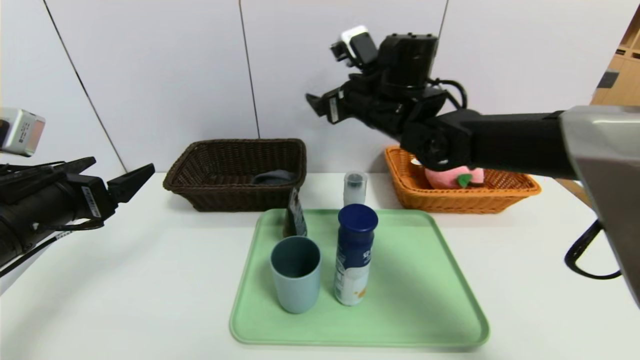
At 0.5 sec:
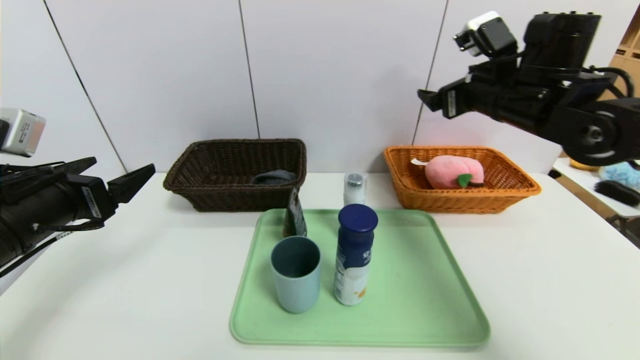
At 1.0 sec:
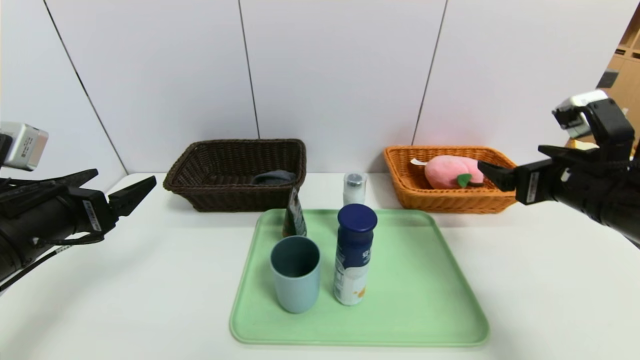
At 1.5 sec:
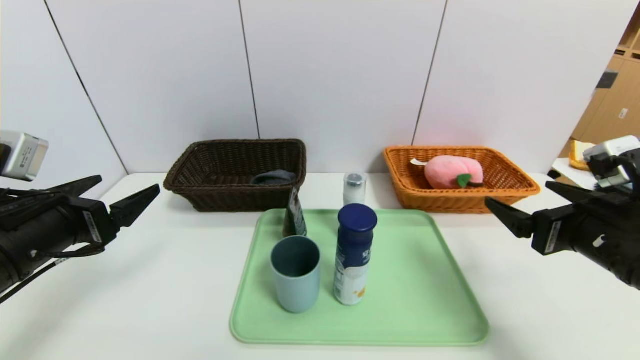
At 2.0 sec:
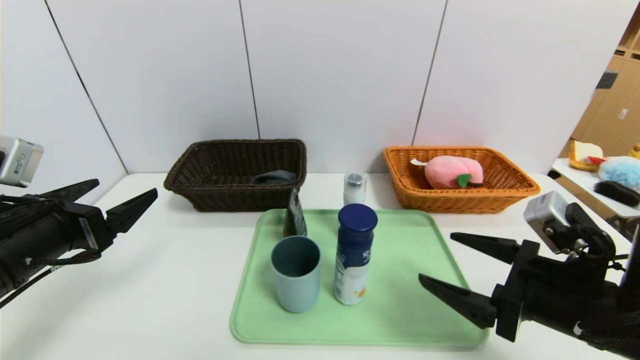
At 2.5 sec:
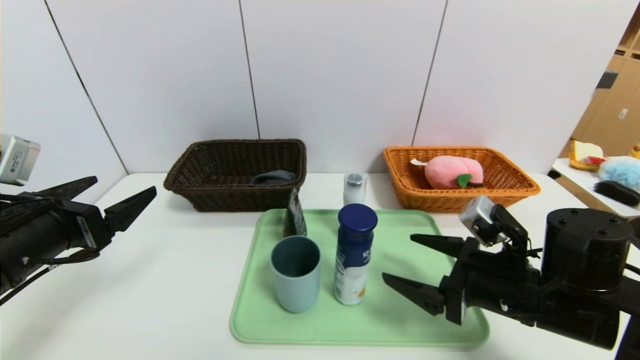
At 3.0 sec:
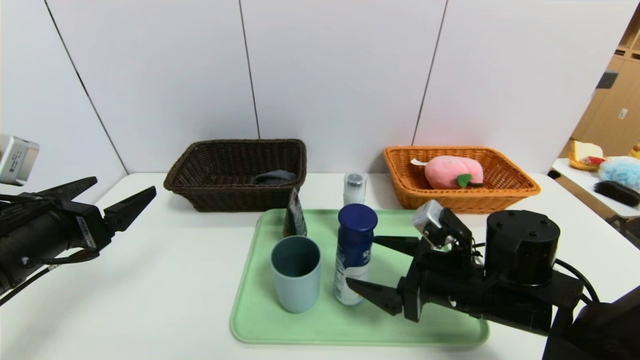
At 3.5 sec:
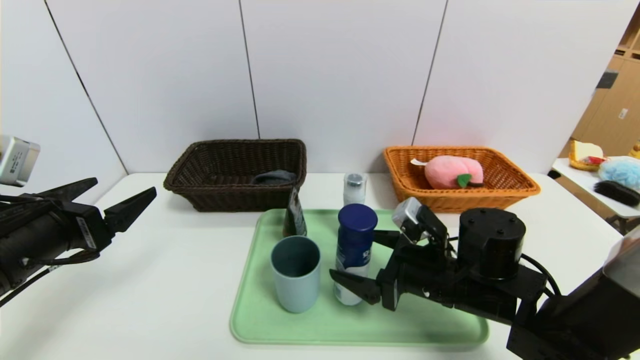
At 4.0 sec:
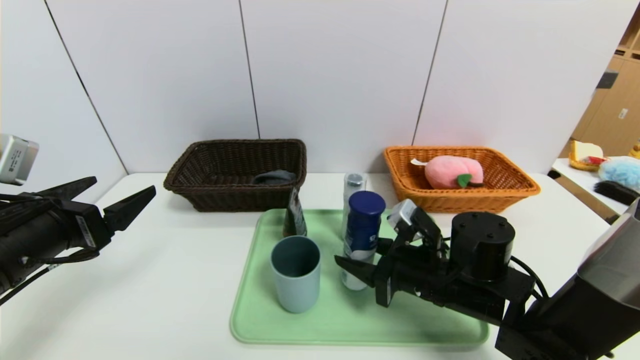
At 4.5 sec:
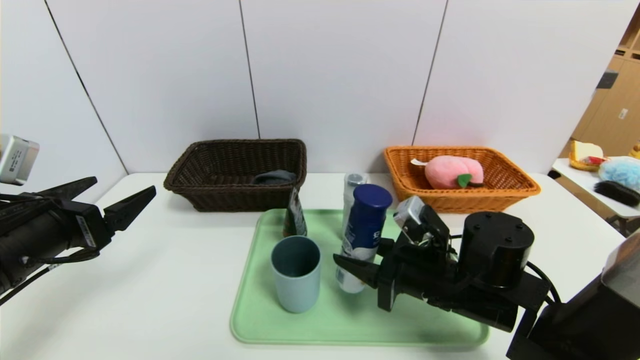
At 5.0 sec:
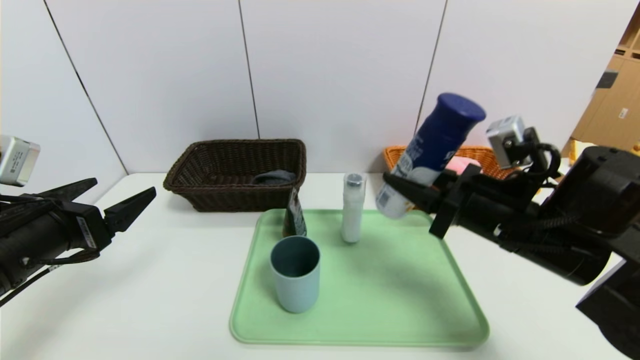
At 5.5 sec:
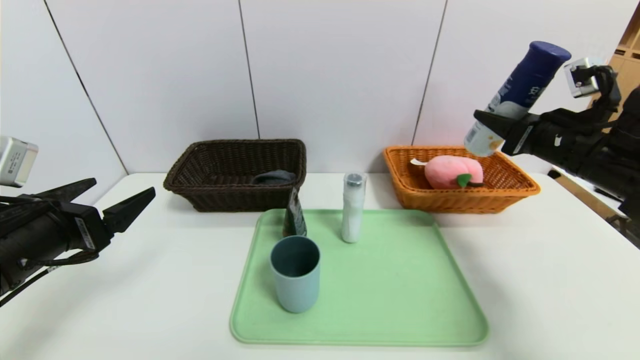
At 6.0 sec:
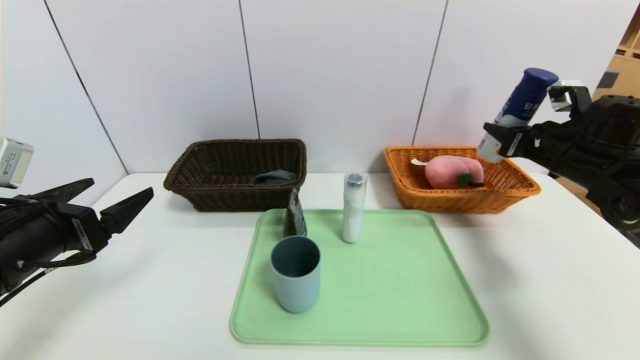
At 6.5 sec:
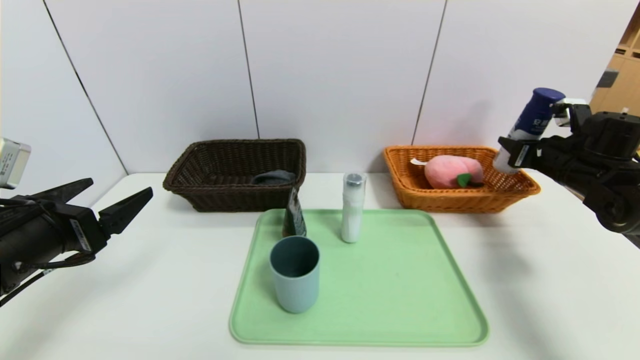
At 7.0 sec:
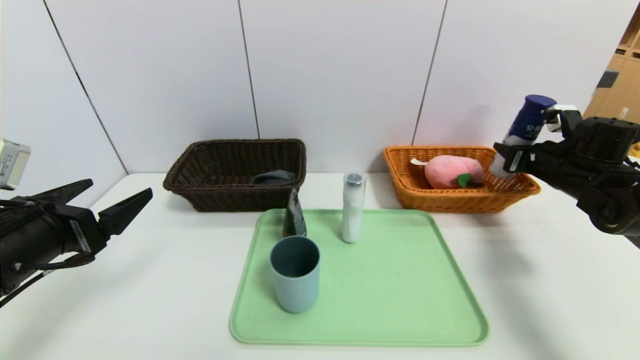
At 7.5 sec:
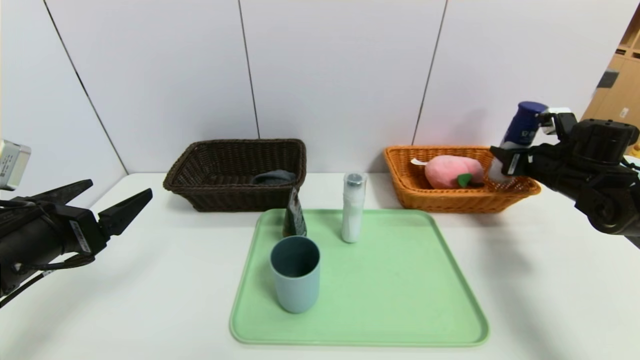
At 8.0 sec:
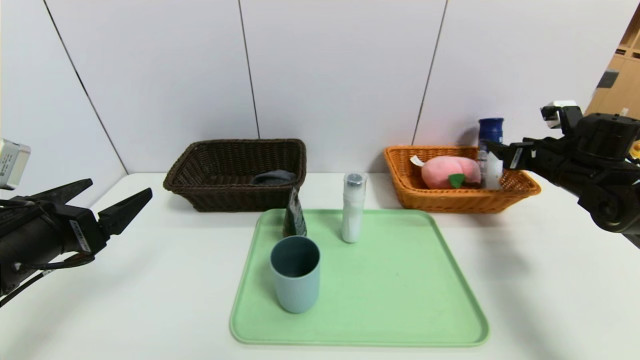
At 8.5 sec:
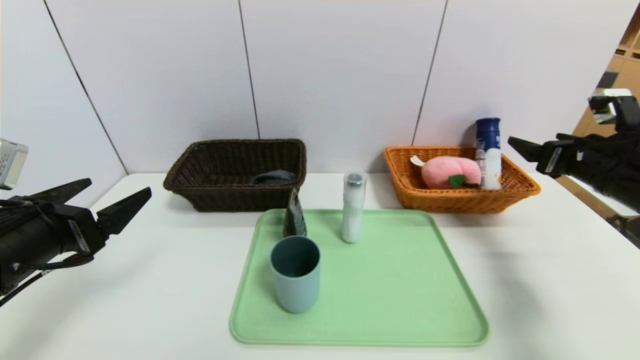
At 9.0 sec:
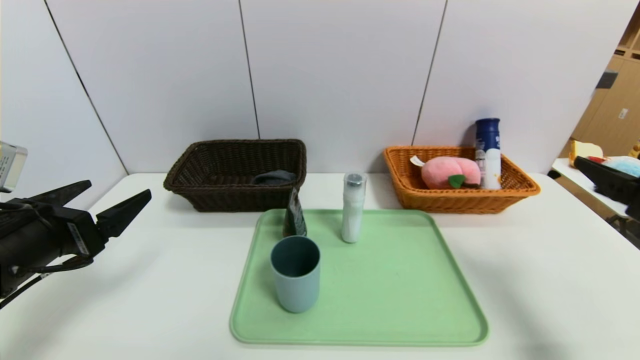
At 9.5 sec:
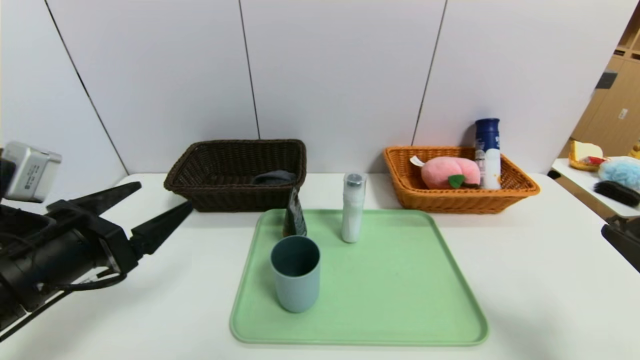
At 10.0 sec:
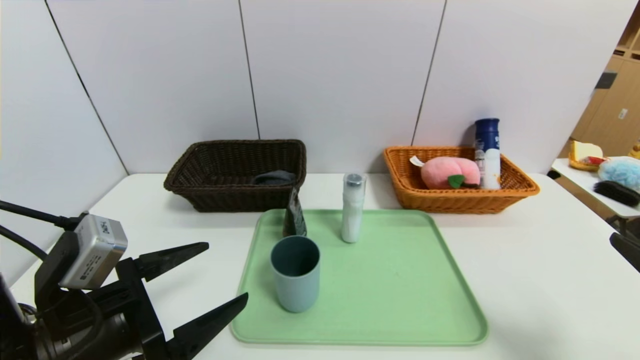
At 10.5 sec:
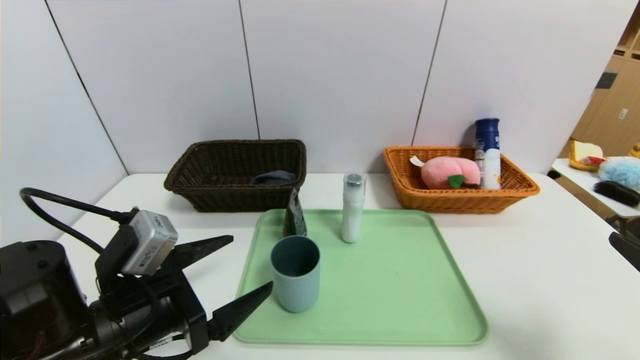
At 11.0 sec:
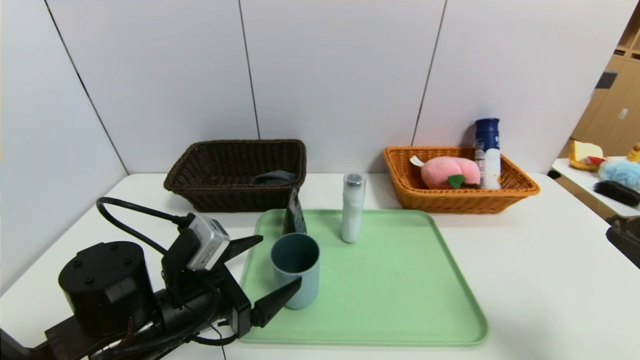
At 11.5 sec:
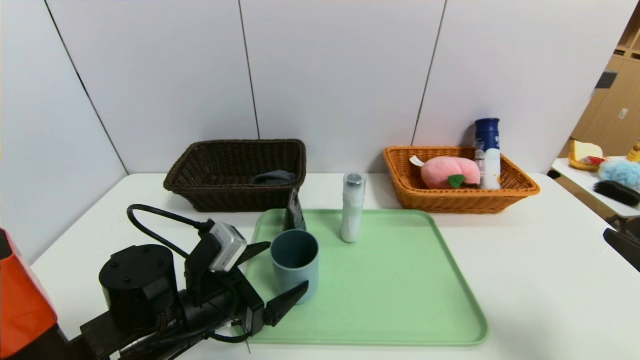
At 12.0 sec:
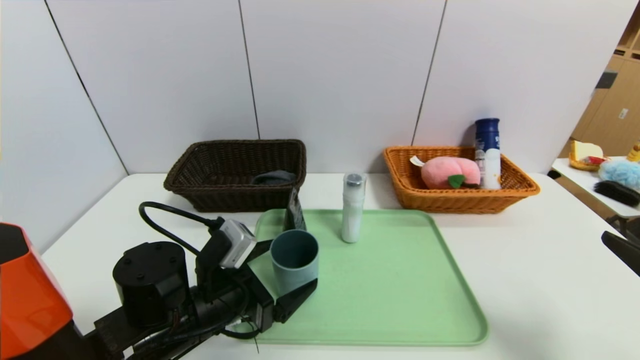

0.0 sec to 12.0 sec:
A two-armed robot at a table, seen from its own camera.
Task of the whole recording: place the food in the right basket with the right gripper, and place the non food items in the left basket with the left gripper.
Step, 0.5 sec to 7.5 sec: Grasp the yogurt and put it in the right basket.
0.0 sec to 2.0 sec: The right gripper moves backward, to the right and downward, roughly 30 cm.
2.0 sec to 4.0 sec: The right gripper shifts some 15 cm to the left, forward and downward, and closes its fingers.
4.0 sec to 6.0 sec: The right gripper heads to the right, upward and forward, covering roughly 25 cm.
6.0 sec to 8.0 sec: The right gripper opens up.
8.0 sec to 10.0 sec: The right gripper travels backward by some 30 cm; the left gripper heads to the right, covering some 10 cm.
10.0 sec to 12.0 sec: The left gripper is displaced forward, to the right and downward by roughly 10 cm.

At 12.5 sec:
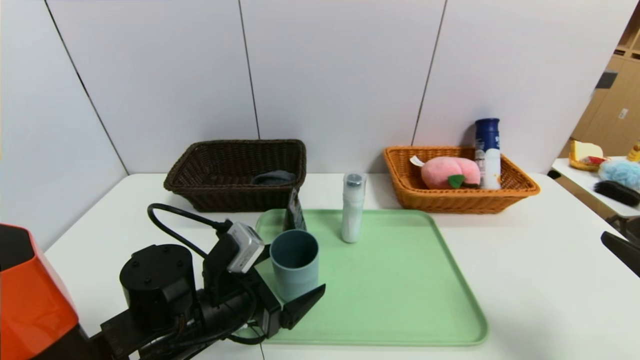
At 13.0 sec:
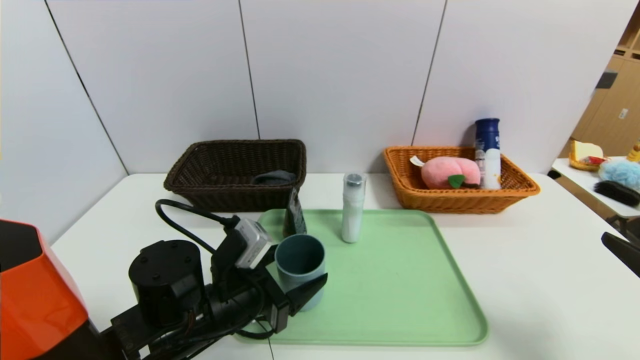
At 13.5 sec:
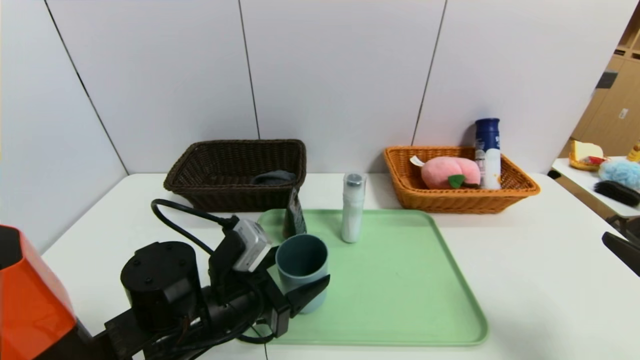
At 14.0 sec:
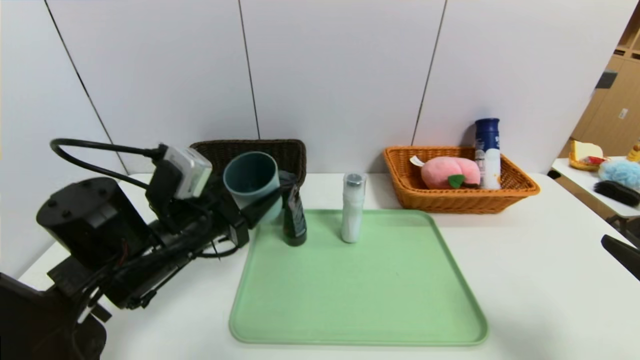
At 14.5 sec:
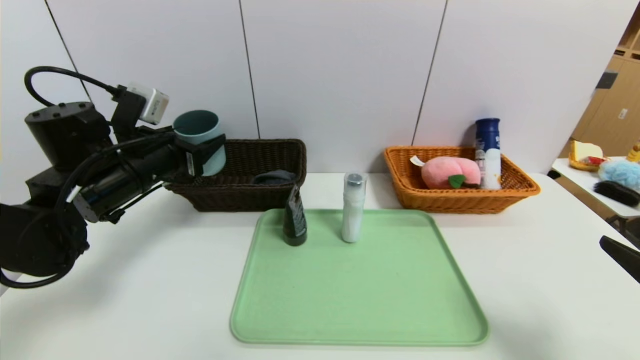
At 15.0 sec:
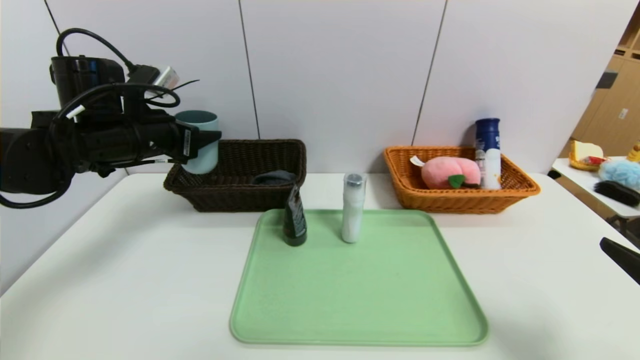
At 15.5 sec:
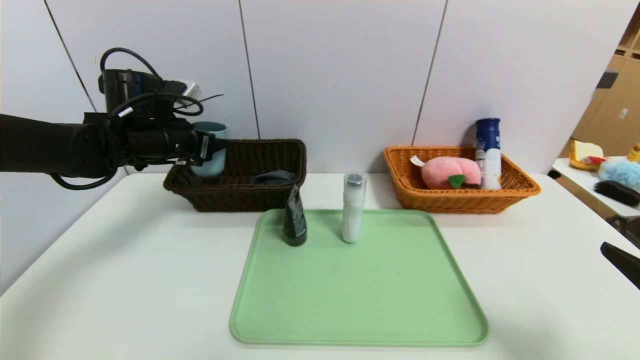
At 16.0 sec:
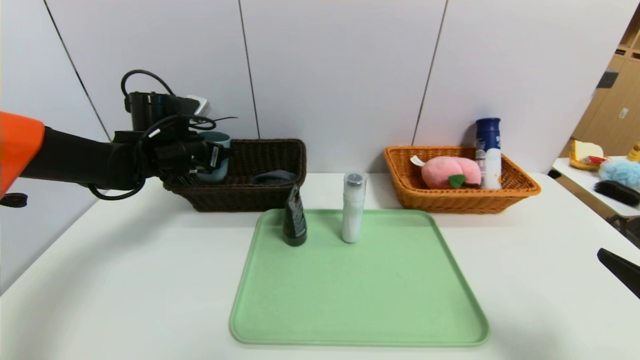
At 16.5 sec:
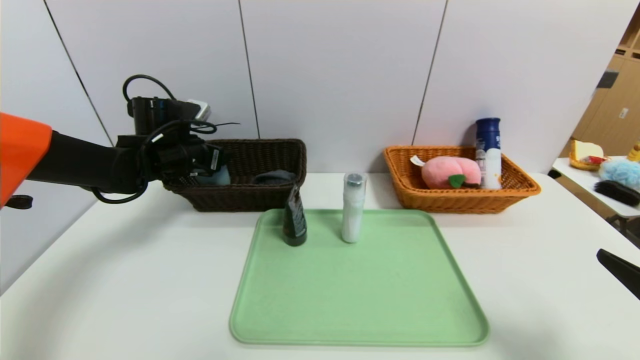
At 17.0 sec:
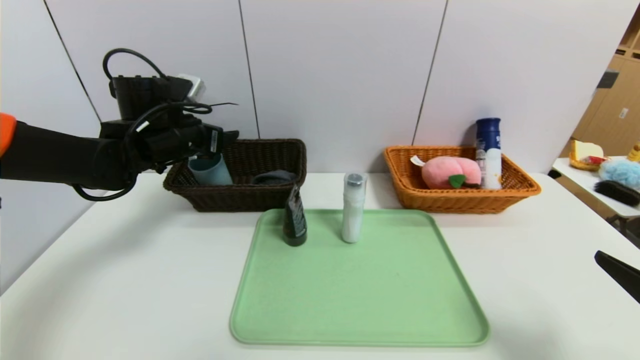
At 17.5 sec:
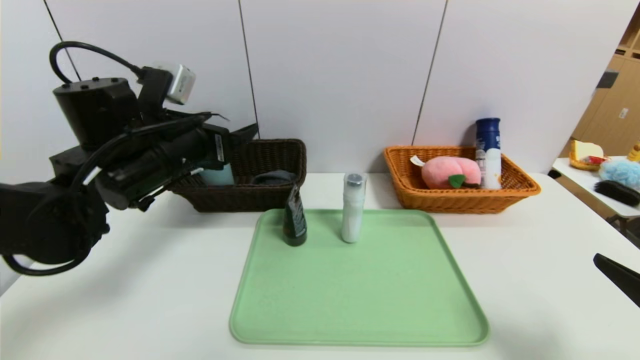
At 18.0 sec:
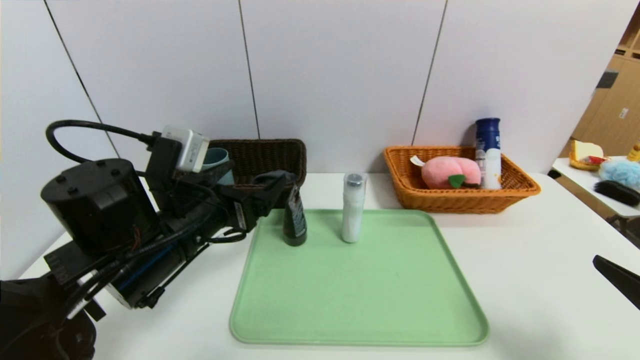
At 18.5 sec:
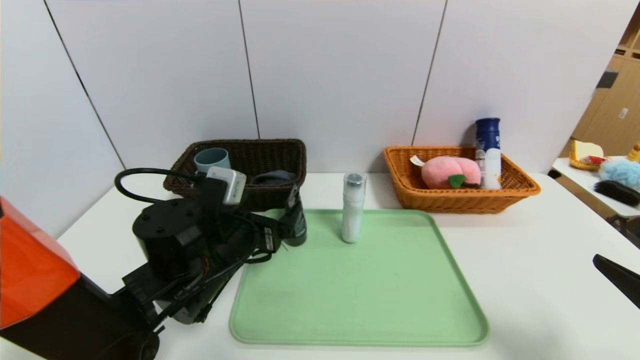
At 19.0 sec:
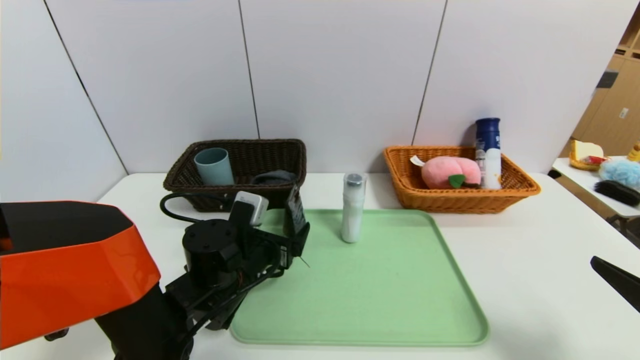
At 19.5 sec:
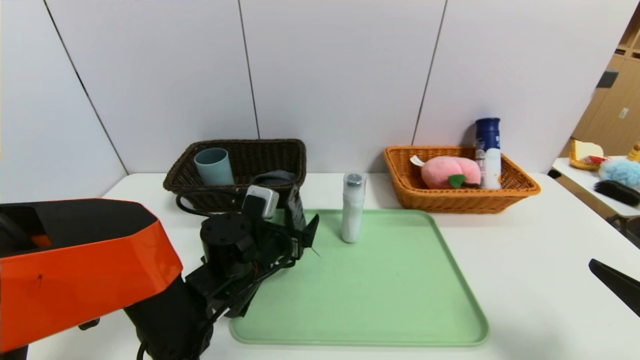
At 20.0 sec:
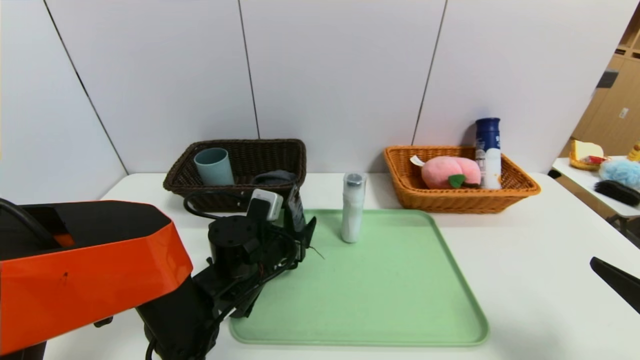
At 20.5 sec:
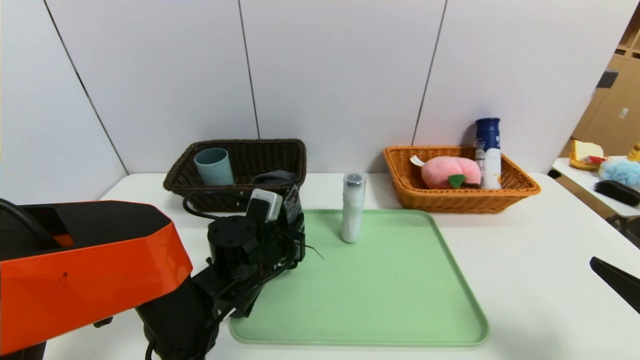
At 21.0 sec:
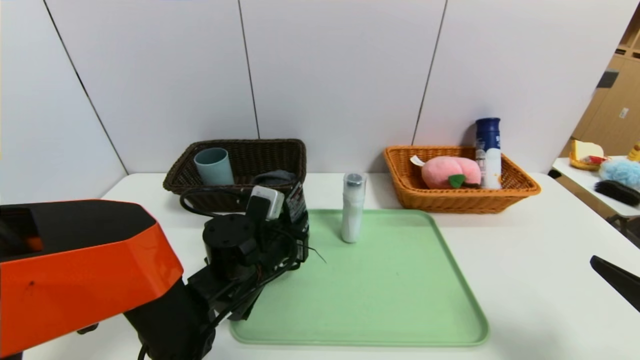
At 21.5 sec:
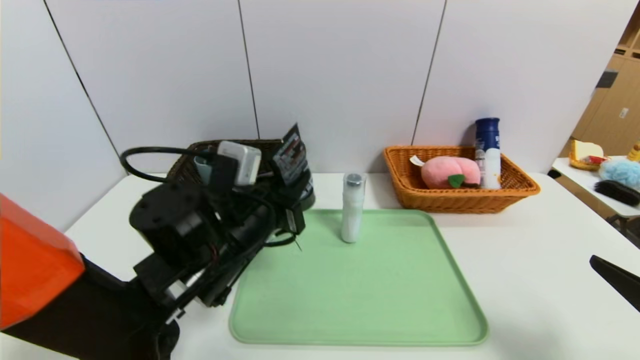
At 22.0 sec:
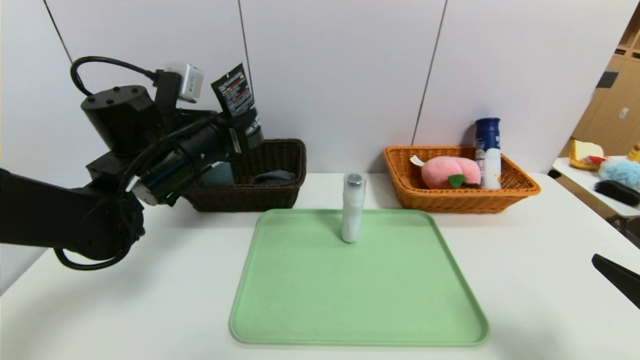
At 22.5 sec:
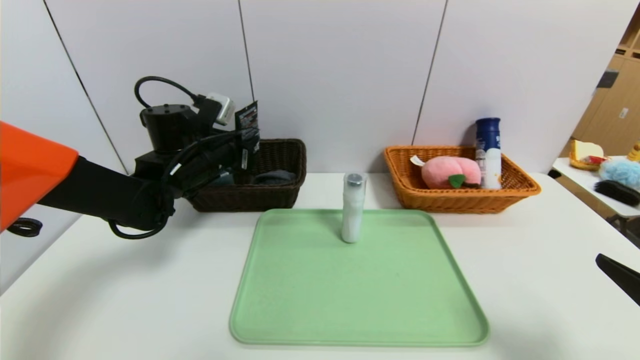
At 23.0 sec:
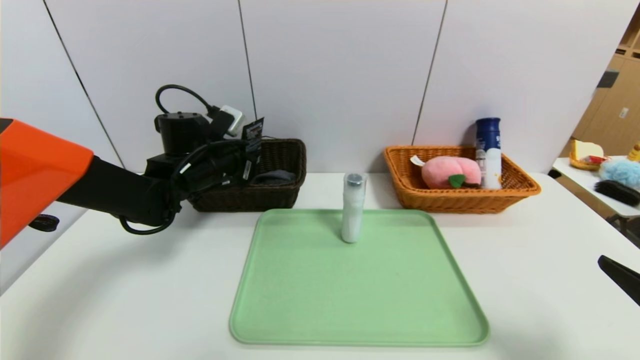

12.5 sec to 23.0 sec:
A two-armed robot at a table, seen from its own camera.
Task of the whole recording: place the food in the right basket with the right gripper, and place the non food items in the left basket with the left gripper.
Step, 12.5 sec to 17.0 sec: Grasp the blue cup and put it in the left basket.
12.5 sec to 14.5 sec: The left gripper moves upward, to the left and forward, some 20 cm, and closes its fingers.
14.5 sec to 16.5 sec: The left gripper goes some 10 cm forward.
16.5 sec to 19.0 sec: The left gripper moves backward, to the right and downward, some 25 cm.
19.0 sec to 21.0 sec: The left gripper closes.
21.0 sec to 23.0 sec: The left gripper moves forward, to the left and upward, about 20 cm.
